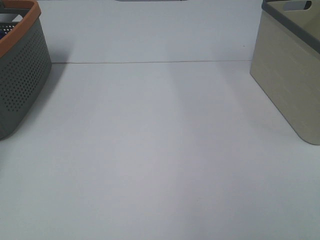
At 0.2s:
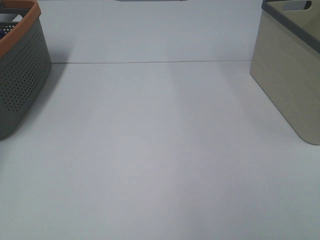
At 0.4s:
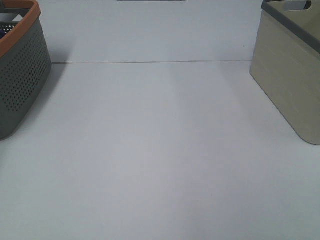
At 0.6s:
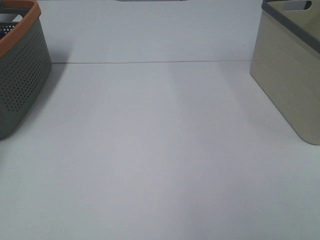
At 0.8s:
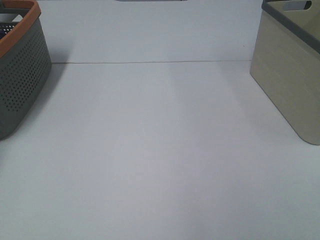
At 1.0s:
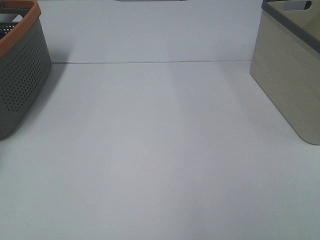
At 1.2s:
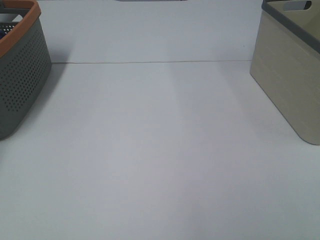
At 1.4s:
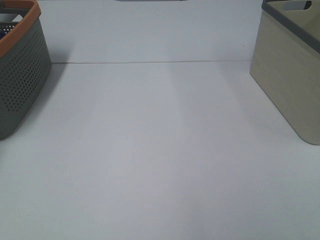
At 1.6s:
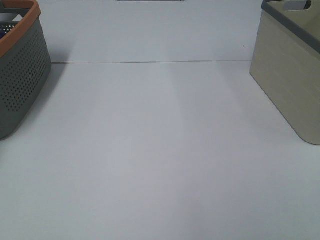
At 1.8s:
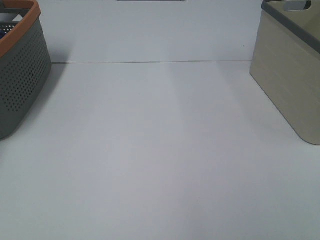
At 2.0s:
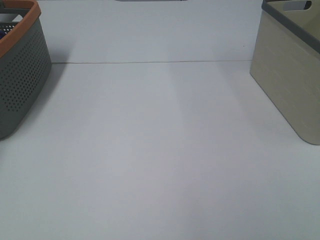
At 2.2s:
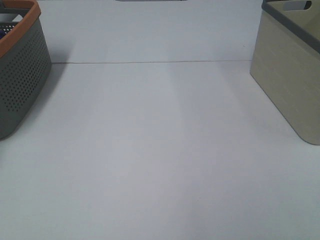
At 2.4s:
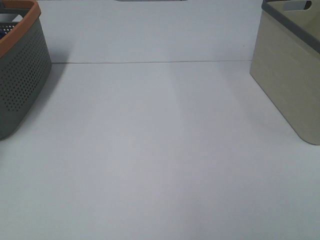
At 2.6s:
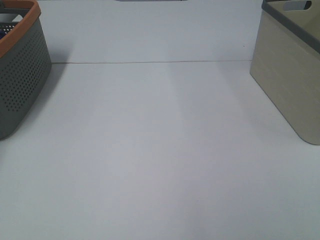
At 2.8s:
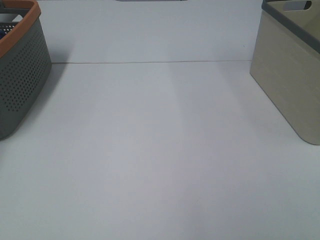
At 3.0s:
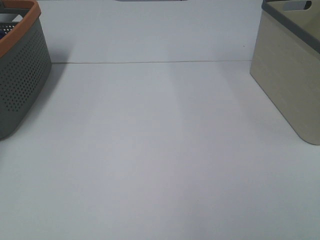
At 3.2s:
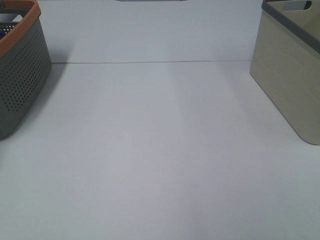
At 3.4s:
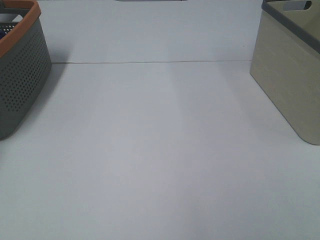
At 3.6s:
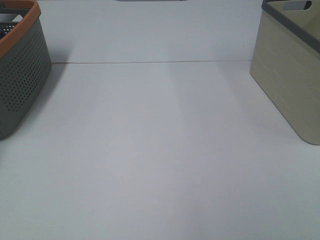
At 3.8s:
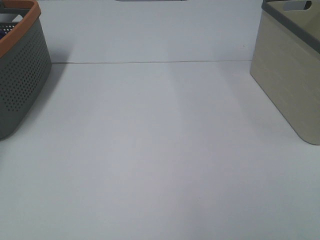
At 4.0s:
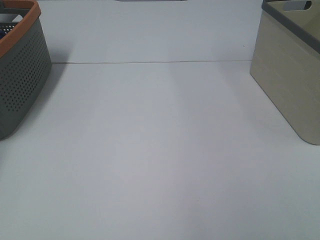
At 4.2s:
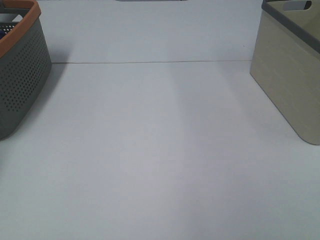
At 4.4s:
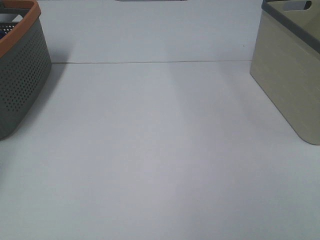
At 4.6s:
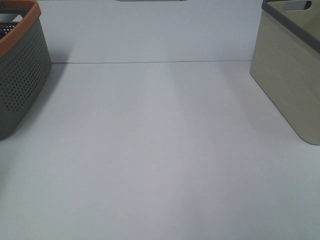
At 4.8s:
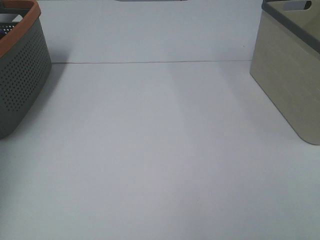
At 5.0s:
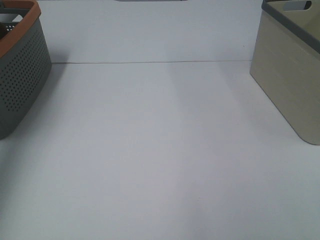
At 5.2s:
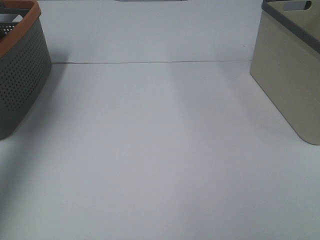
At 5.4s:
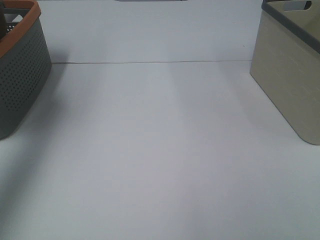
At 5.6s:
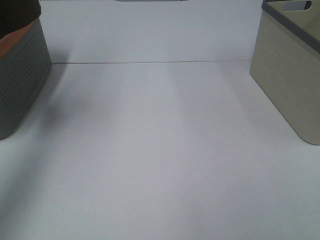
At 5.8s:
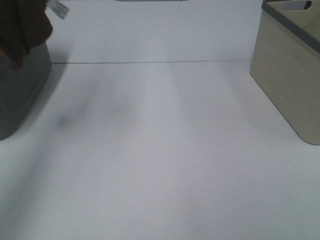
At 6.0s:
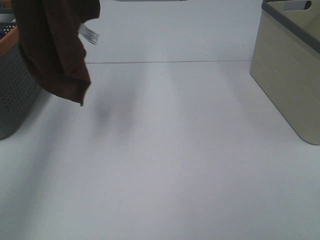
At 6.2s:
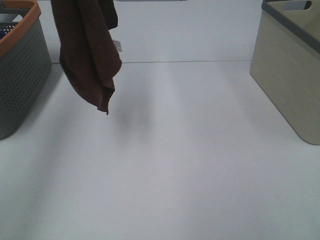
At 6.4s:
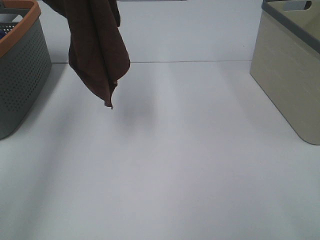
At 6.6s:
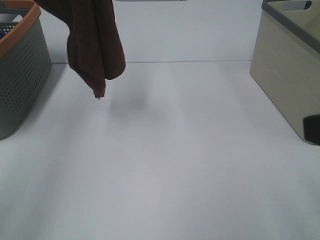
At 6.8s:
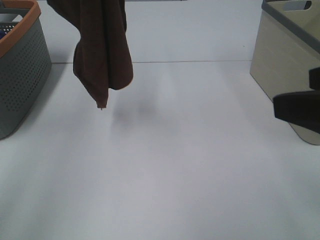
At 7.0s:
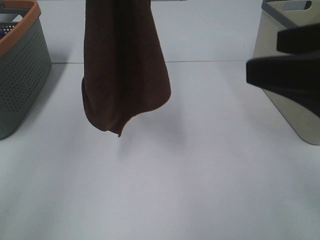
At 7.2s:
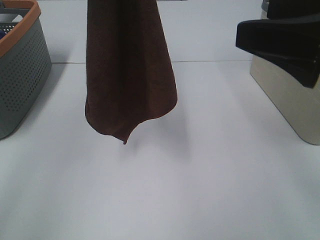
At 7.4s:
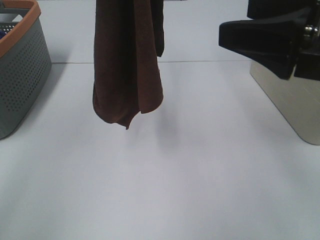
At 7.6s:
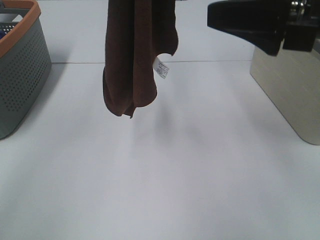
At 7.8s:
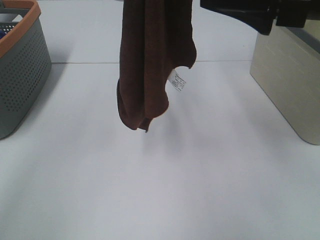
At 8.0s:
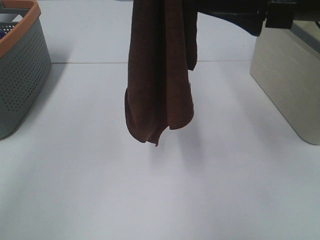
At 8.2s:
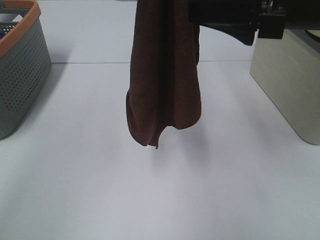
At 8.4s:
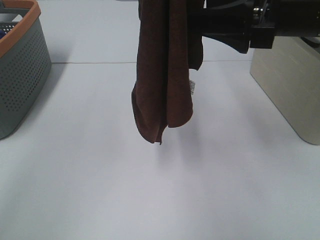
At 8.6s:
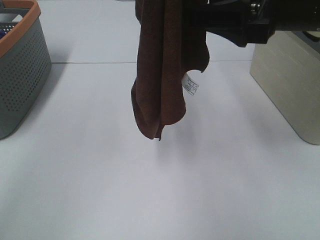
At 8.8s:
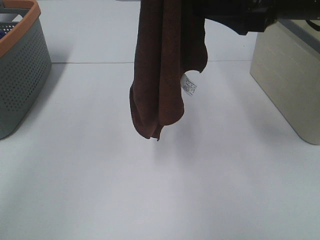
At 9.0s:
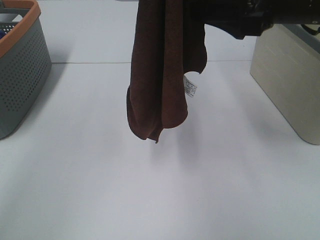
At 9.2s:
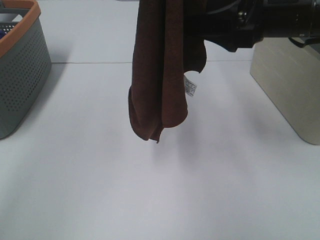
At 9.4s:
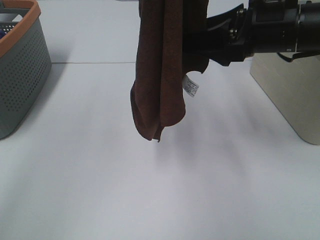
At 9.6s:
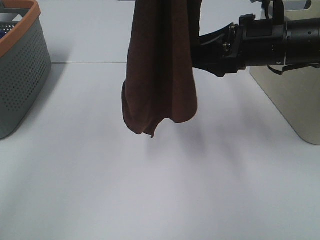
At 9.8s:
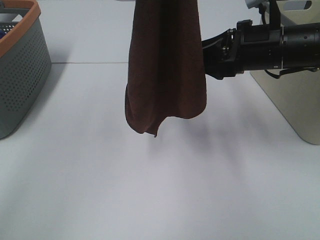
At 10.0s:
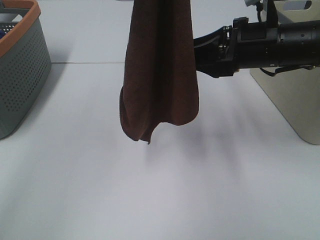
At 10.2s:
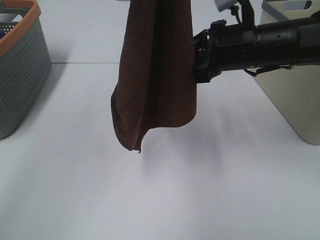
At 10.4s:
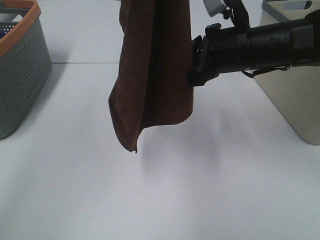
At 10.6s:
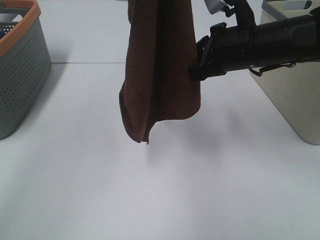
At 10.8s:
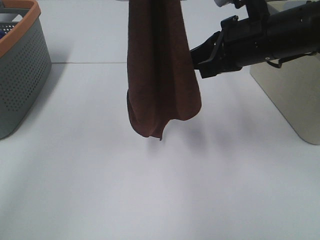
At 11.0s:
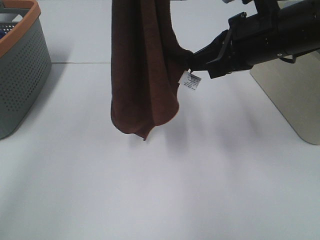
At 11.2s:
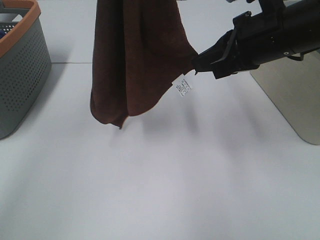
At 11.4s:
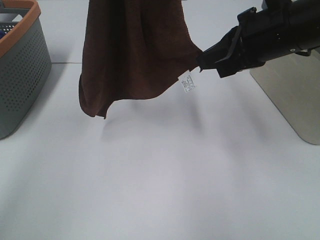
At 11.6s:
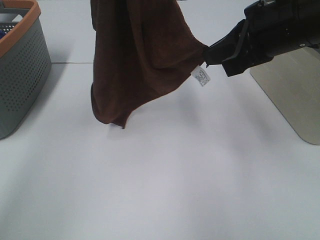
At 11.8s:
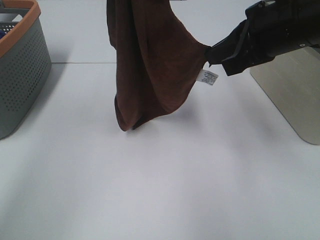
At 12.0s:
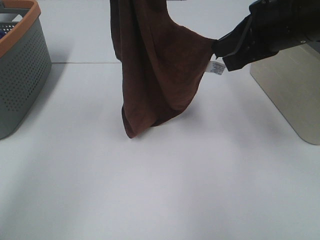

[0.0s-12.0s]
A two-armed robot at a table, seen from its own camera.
Task of the whole recording: Remove the towel and place it.
Step, 4.4s to 9.0s: Right hand: grab a corner of the brown towel and straighten it.
Step, 9.2s to 11.6s: Left hand: spread the brown towel flat on the table.
Step, 9.2s to 11.6s: Right hand: spread the brown towel flat on the table.
4.4s to 6.0s: The left gripper heads upward, to the right and backward, covering about 40 cm.
6.0s to 7.6s: The left gripper goes some 10 cm to the right. Meanwhile the right gripper shifts some 25 cm forward.
7.6s to 9.0s: The right gripper travels forward by about 5 cm.
9.0s to 10.4s: The right gripper moves downward, some 10 cm, and closes.
10.4s to 12.0s: The left gripper travels downward and forward by approximately 10 cm. Meanwhile the right gripper is displaced upward by roughly 5 cm.

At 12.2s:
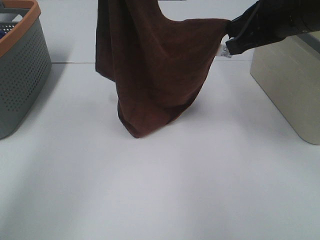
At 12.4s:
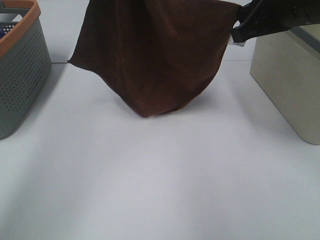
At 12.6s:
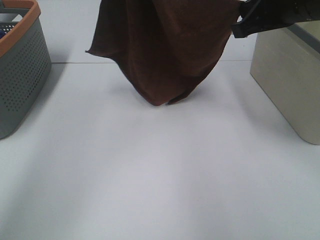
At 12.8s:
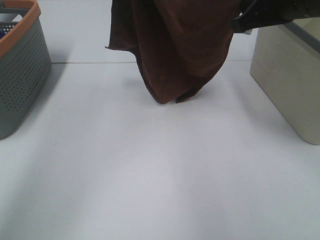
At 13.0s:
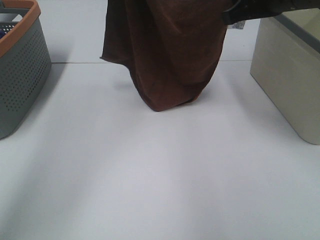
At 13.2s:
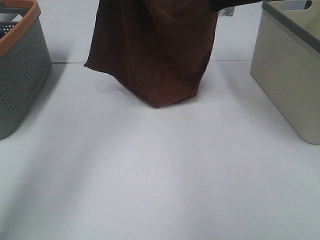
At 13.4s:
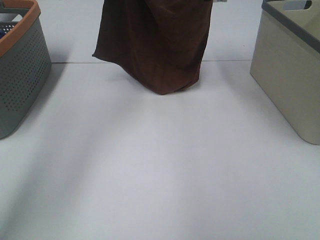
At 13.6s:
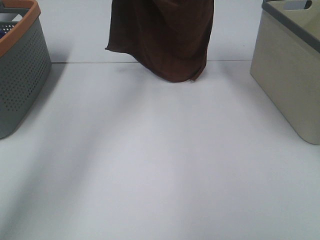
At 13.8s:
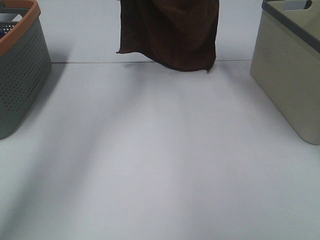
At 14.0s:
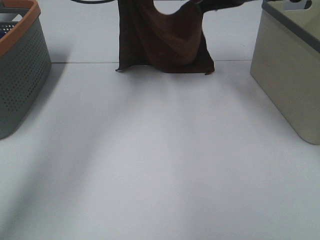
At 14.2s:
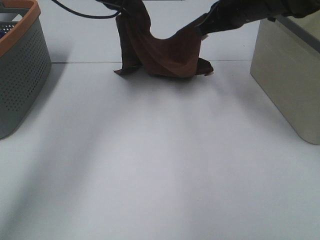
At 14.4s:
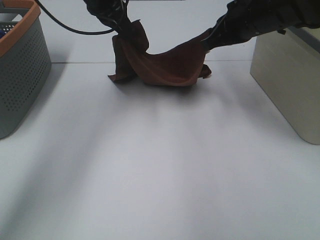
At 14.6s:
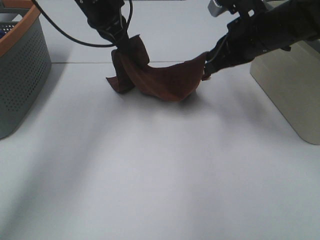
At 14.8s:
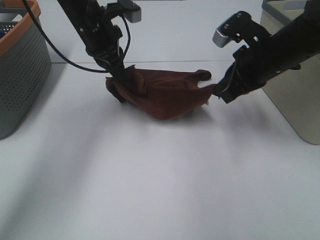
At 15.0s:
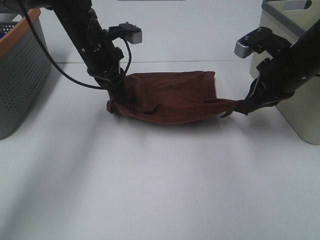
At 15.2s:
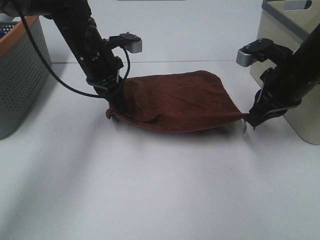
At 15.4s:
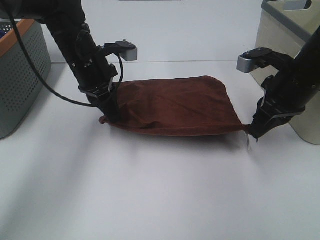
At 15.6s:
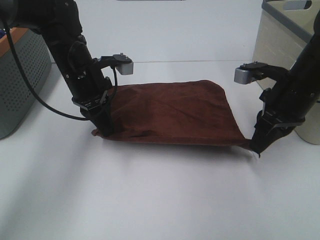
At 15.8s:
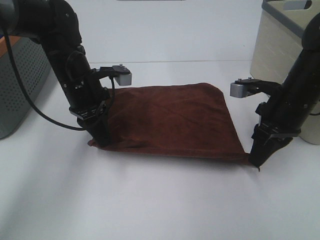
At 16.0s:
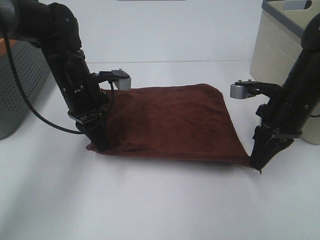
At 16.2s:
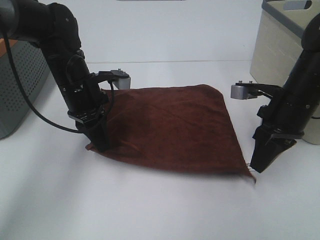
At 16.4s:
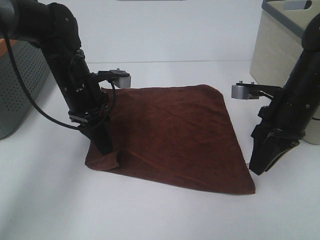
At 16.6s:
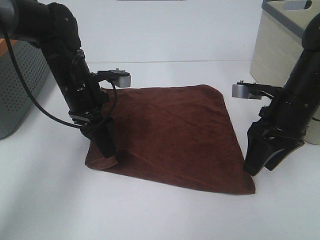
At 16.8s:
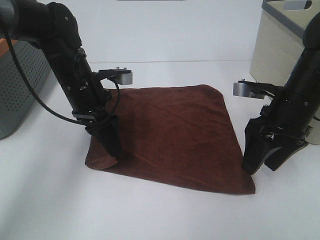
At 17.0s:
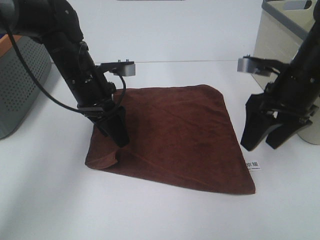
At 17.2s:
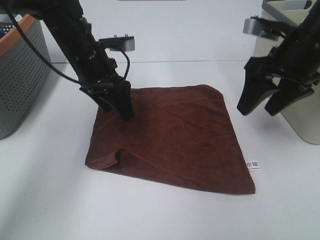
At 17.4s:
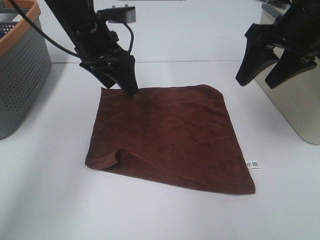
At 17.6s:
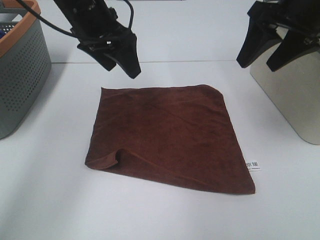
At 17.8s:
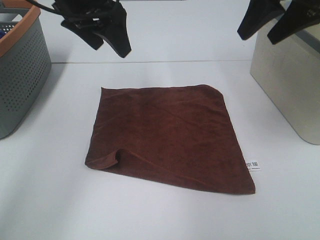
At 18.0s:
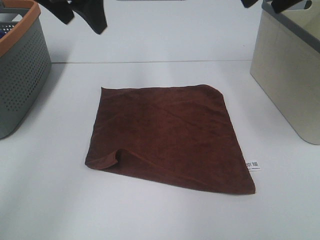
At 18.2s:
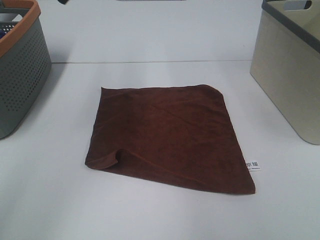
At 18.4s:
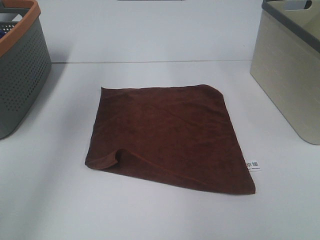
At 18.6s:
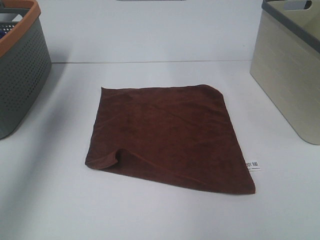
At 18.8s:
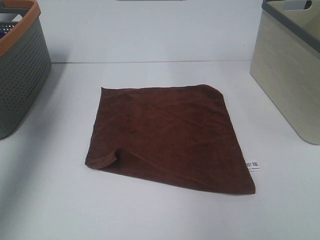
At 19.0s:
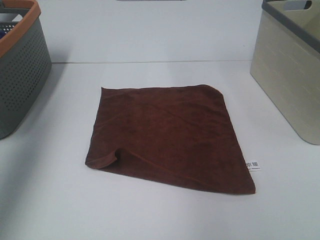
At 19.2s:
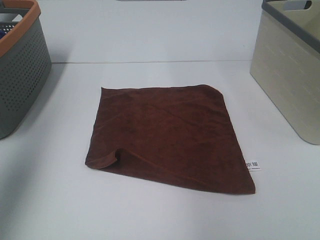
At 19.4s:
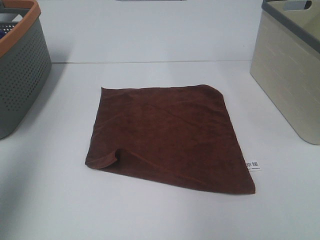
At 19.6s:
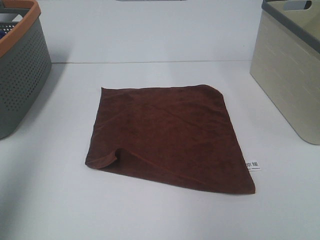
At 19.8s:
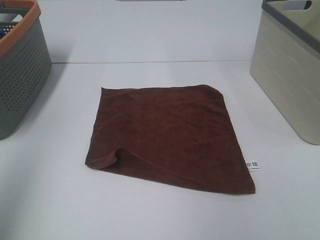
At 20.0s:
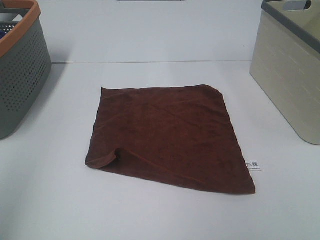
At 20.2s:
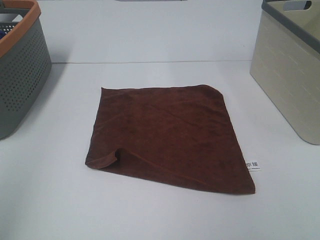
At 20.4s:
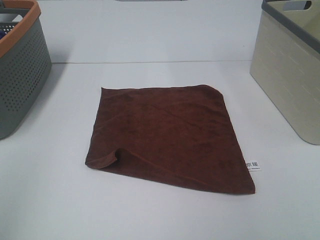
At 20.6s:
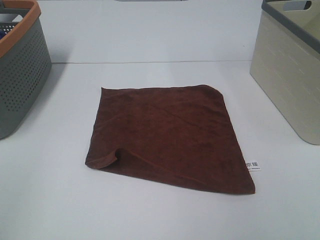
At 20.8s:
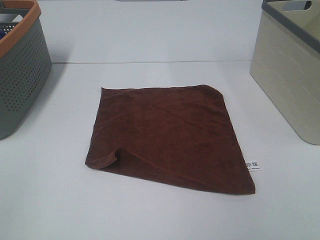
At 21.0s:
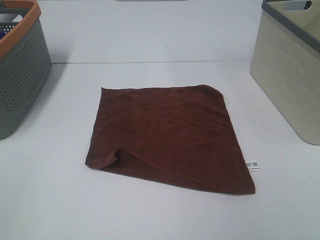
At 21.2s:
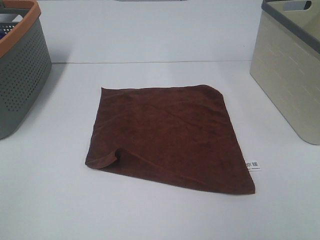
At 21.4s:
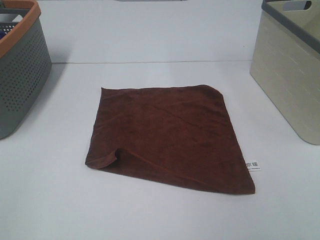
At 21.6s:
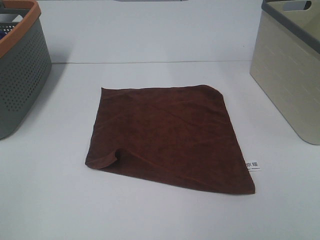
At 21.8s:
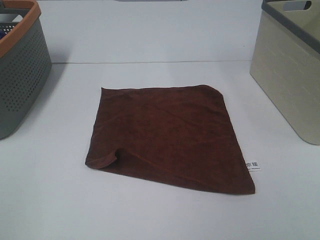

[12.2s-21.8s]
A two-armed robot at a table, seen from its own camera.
Task of the whole recording: Remove the towel and place it.
12.2s to 13.8s: The left gripper travels forward and downward by about 15 cm. The right gripper shifts approximately 15 cm forward.
13.8s to 15.4s: The right gripper moves backward and downward, roughly 20 cm, while the left gripper goes approximately 20 cm downward and backward.
15.4s to 17.0s: The left gripper opens up. The right gripper opens up.
17.0s to 18.6s: The right gripper is displaced upward by roughly 25 cm, while the left gripper moves upward and to the left, roughly 35 cm.
18.6s to 20.2s: The left gripper shifts some 30 cm backward.
